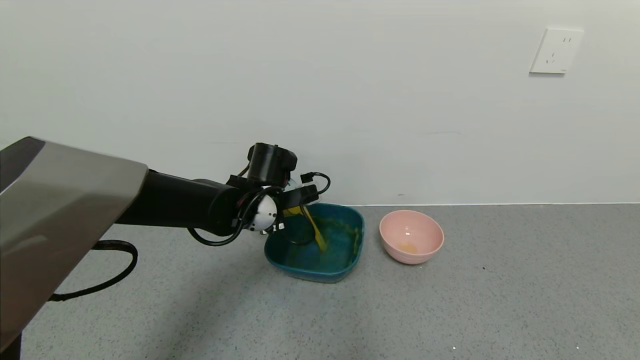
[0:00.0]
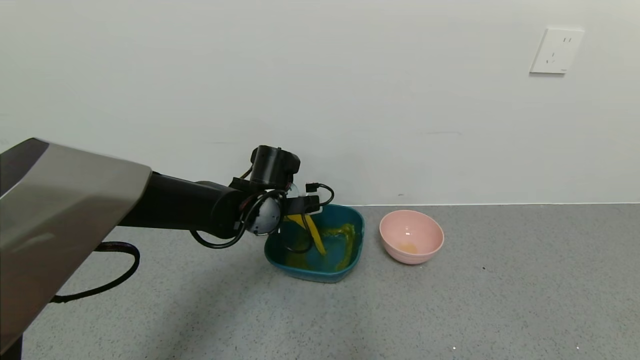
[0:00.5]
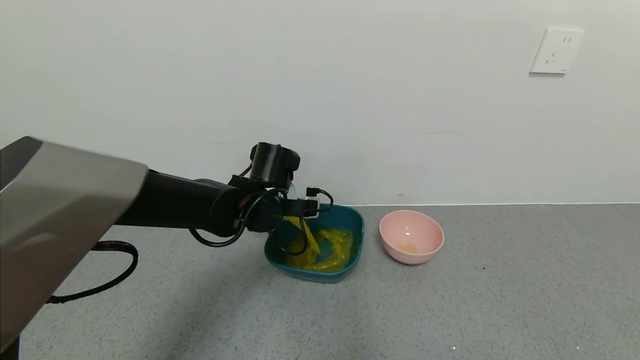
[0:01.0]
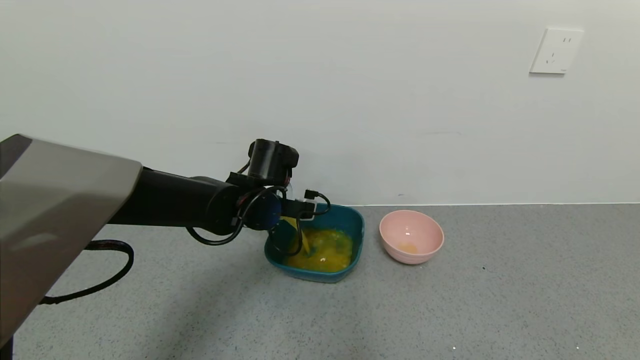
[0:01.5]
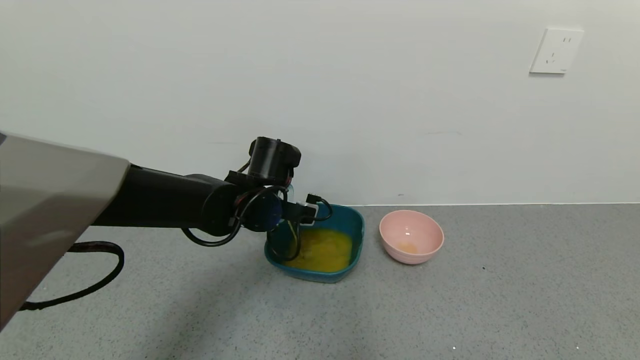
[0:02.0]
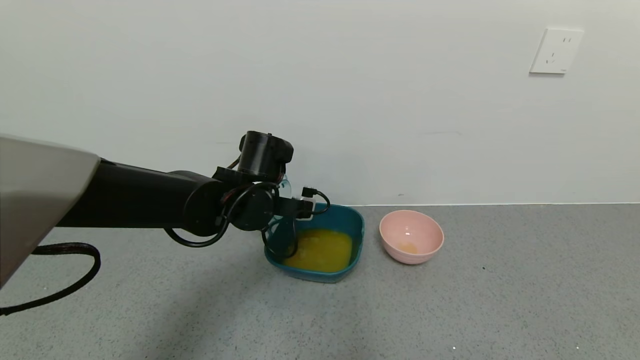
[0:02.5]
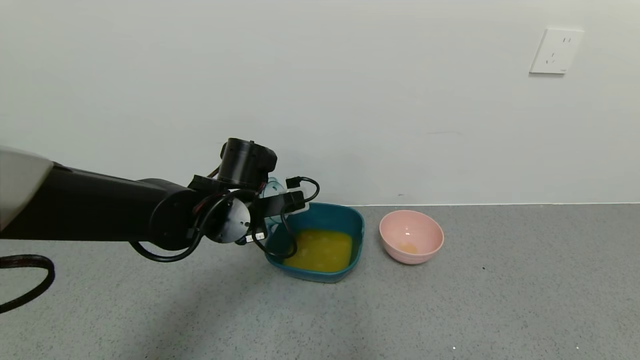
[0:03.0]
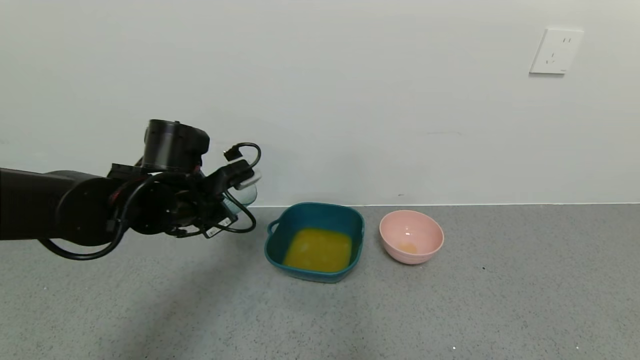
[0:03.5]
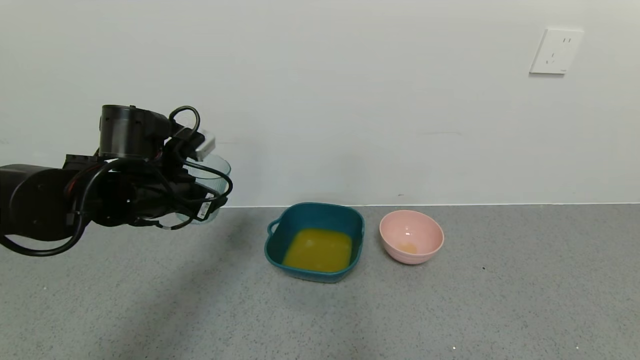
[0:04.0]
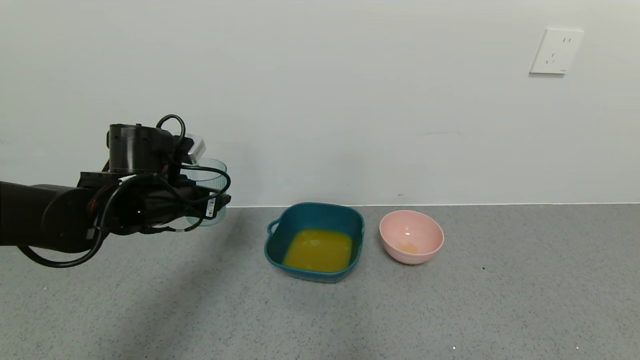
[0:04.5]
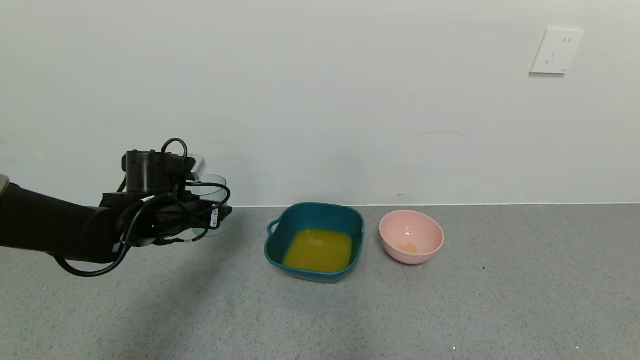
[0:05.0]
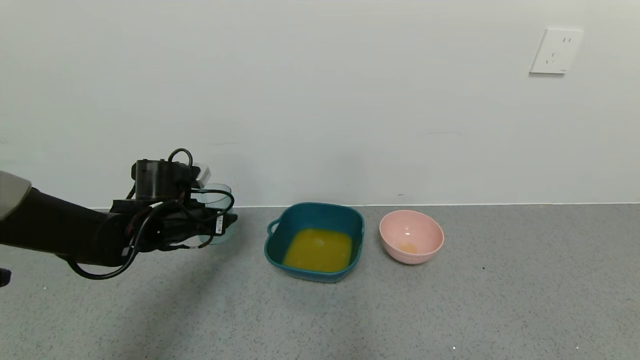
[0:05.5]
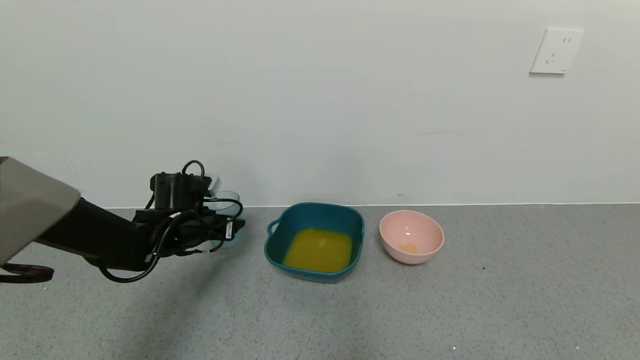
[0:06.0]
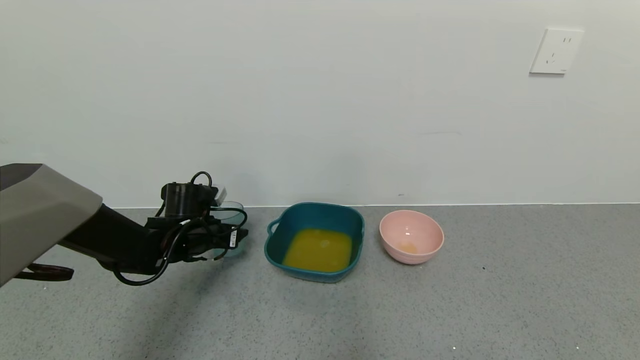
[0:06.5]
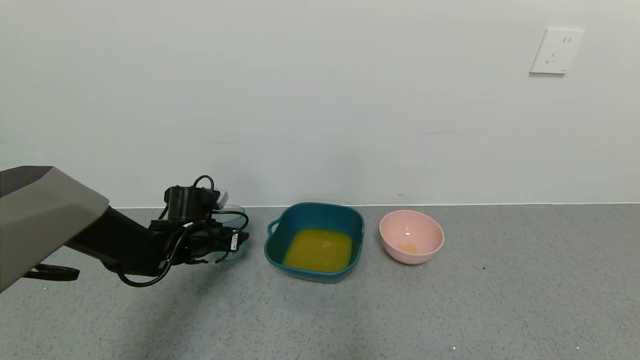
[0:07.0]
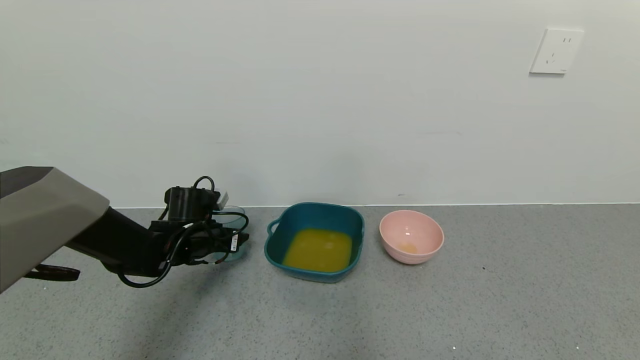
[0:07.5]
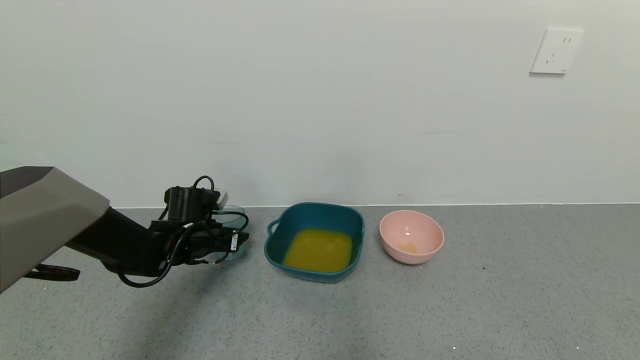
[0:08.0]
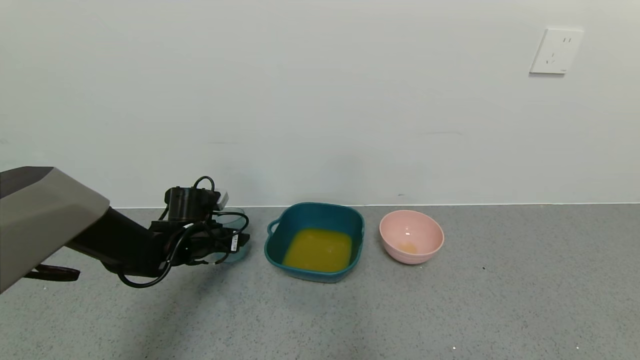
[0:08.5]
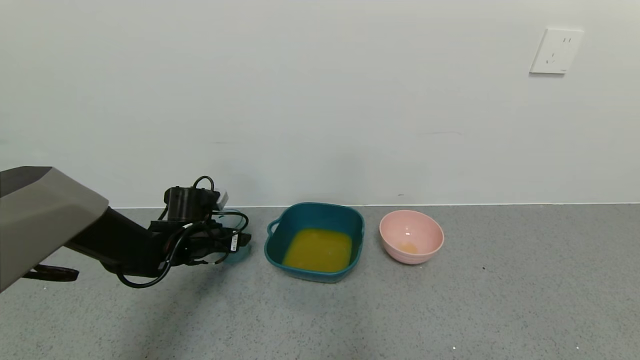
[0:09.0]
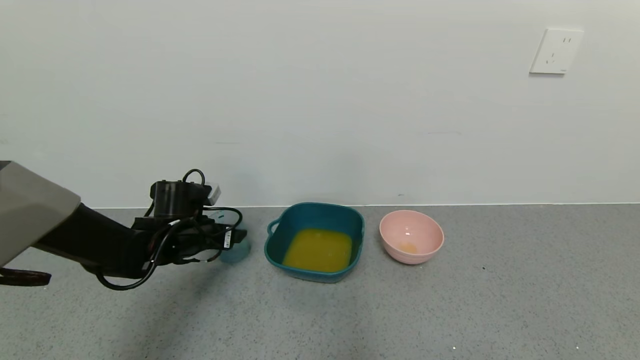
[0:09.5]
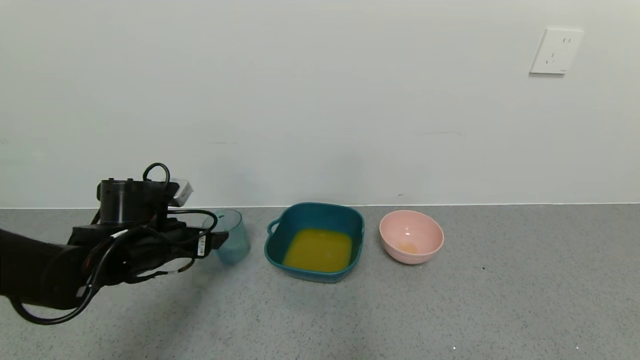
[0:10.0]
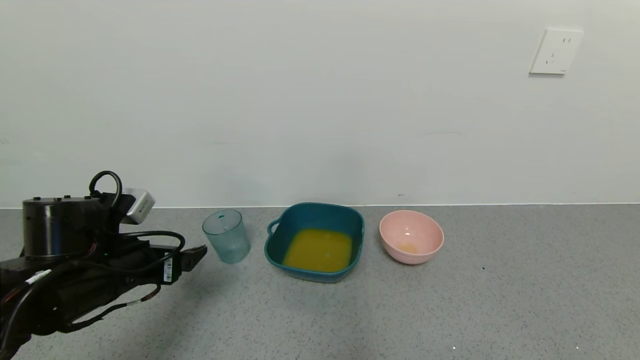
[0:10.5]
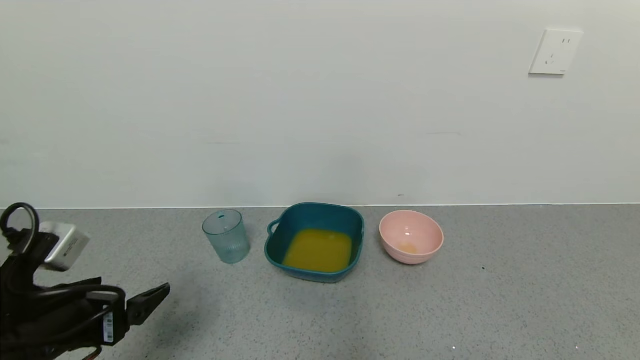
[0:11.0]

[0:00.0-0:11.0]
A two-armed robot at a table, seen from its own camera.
Task of the whole recording: use a gripper to pick up the cup and pour the liquid into a bowl or tray.
Step, 0:00.0 to 0:02.5: Pour the orange juice into the blue basin with left gripper.
Step, 0:03.0 to 0:08.5: Place blue cup with orange juice on the table with left gripper.
0:02.0 to 0:03.5: The left gripper is displaced to the left by some 10 cm.
0:03.5 to 0:05.5: The left gripper travels downward and to the left by approximately 10 cm.
0:05.5 to 0:07.5: The left gripper heads downward, covering approximately 5 cm.
0:09.0 to 0:11.0: The left gripper is displaced backward by approximately 25 cm.

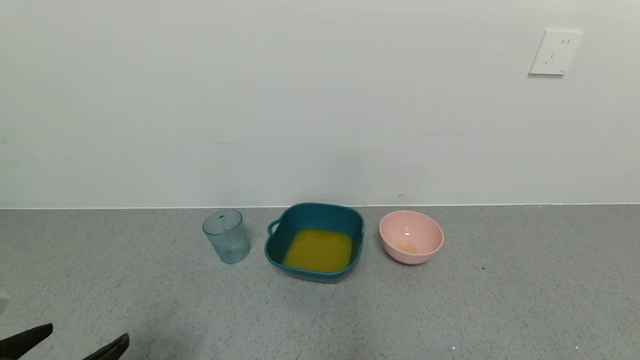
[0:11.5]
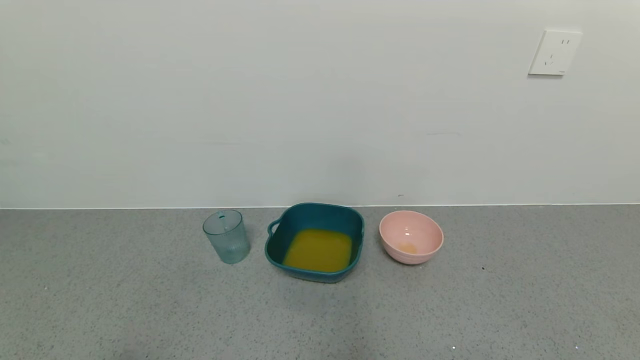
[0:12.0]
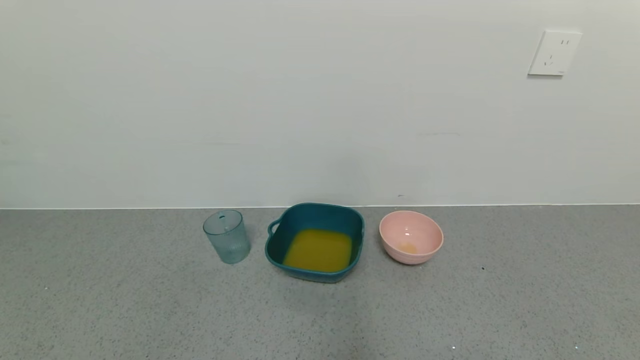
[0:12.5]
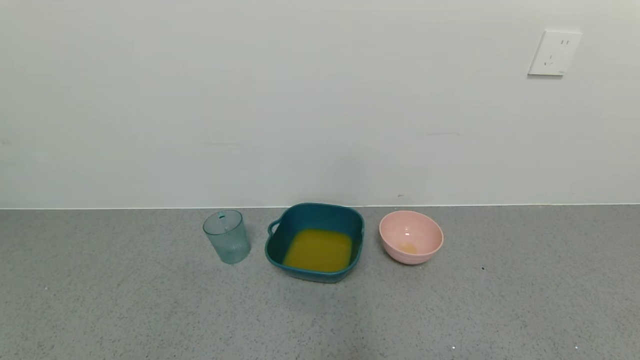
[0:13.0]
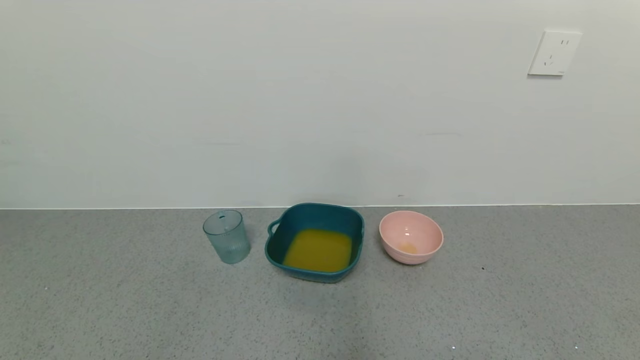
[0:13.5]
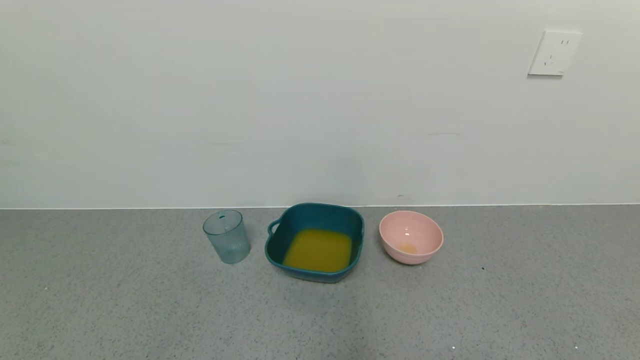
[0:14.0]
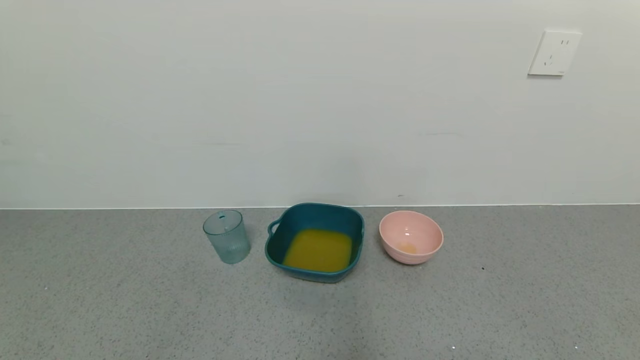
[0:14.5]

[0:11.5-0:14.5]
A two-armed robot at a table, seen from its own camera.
Task of the whole recording: use a gripper to pick up the cup and pour the liquid into a bowl or tray.
0:11.5 to 0:13.0: The left gripper goes approximately 10 cm backward.
